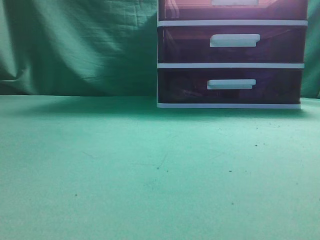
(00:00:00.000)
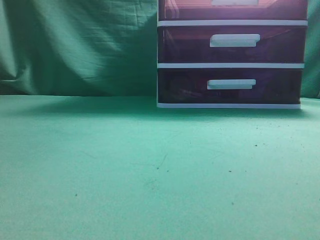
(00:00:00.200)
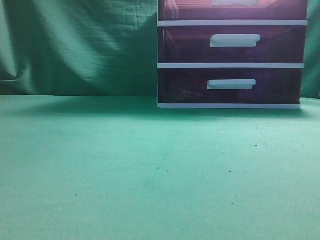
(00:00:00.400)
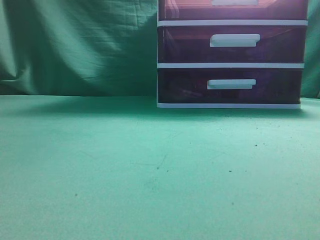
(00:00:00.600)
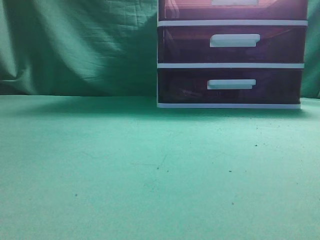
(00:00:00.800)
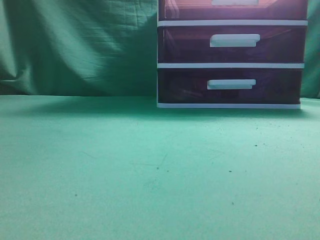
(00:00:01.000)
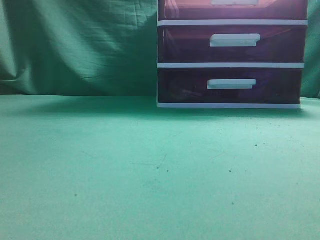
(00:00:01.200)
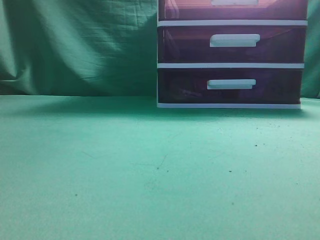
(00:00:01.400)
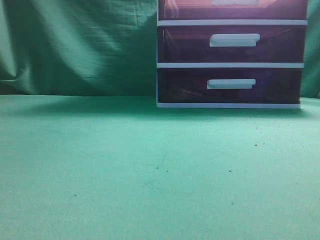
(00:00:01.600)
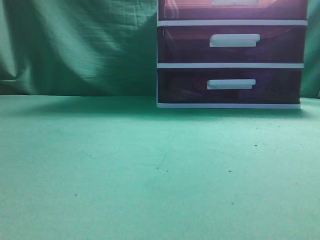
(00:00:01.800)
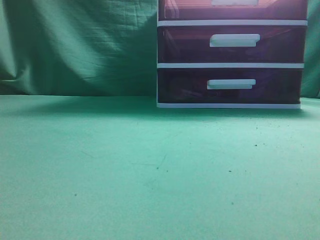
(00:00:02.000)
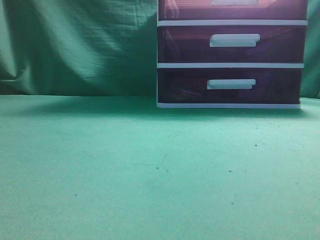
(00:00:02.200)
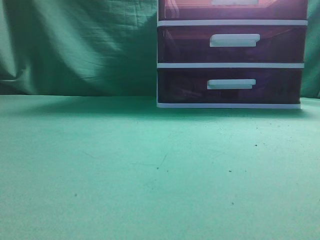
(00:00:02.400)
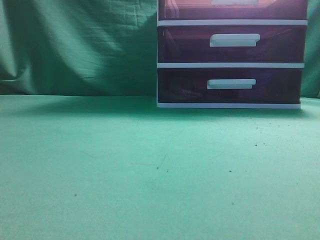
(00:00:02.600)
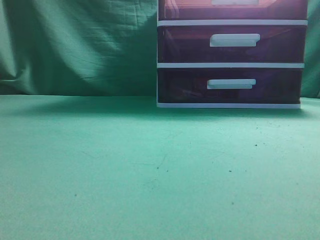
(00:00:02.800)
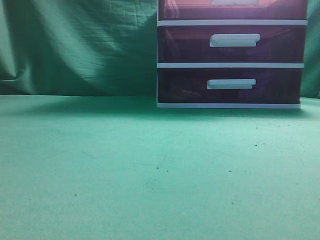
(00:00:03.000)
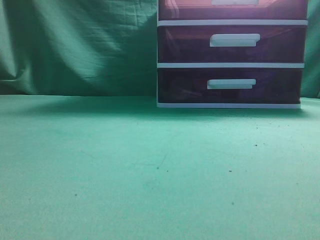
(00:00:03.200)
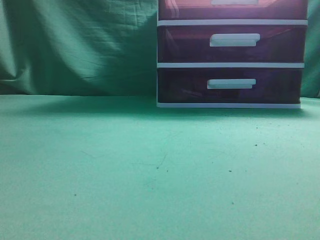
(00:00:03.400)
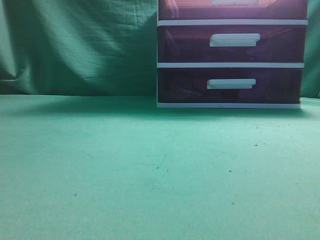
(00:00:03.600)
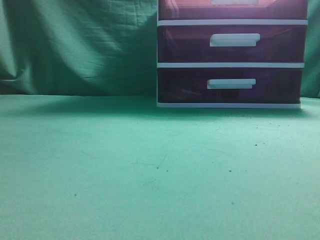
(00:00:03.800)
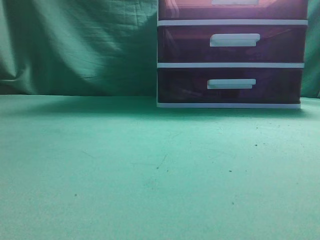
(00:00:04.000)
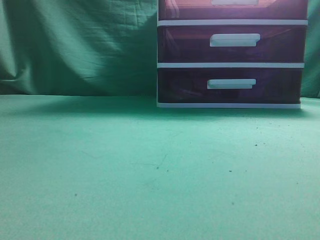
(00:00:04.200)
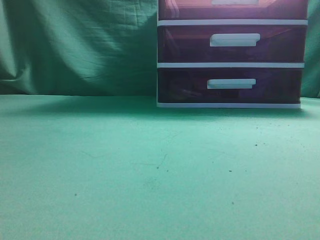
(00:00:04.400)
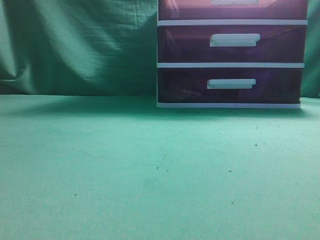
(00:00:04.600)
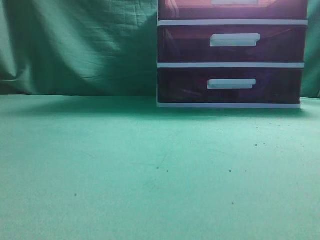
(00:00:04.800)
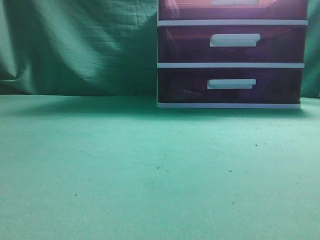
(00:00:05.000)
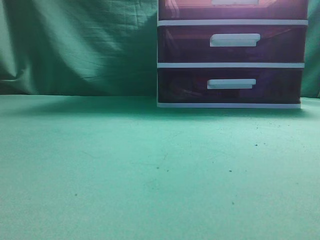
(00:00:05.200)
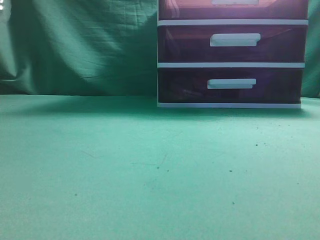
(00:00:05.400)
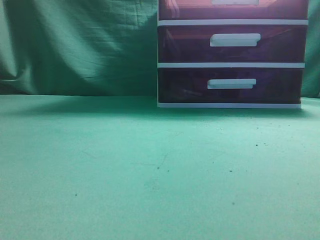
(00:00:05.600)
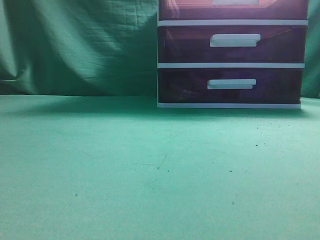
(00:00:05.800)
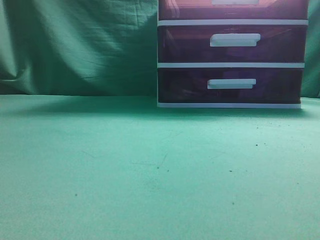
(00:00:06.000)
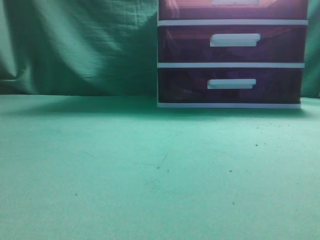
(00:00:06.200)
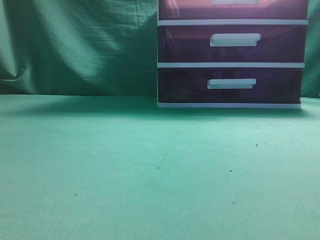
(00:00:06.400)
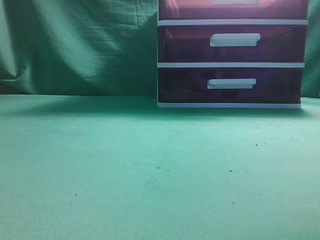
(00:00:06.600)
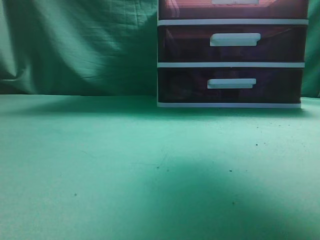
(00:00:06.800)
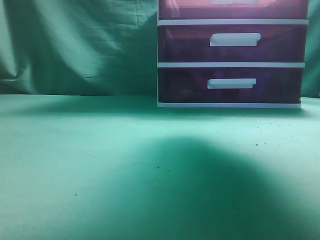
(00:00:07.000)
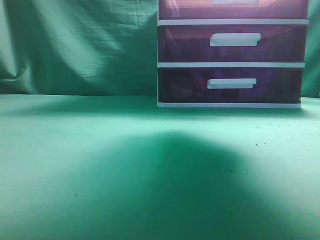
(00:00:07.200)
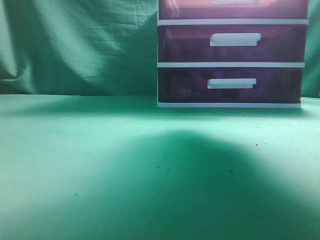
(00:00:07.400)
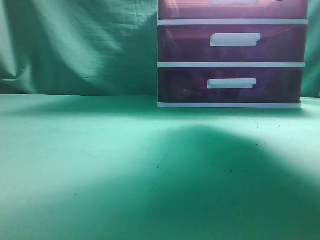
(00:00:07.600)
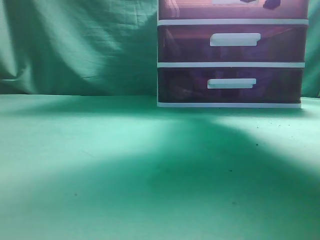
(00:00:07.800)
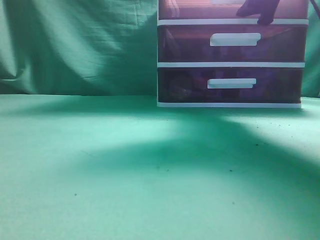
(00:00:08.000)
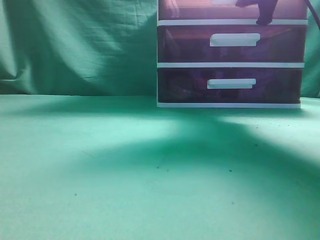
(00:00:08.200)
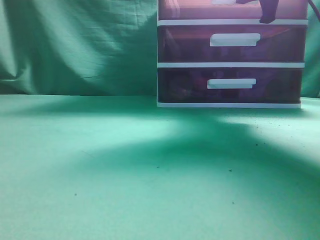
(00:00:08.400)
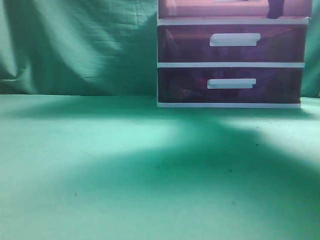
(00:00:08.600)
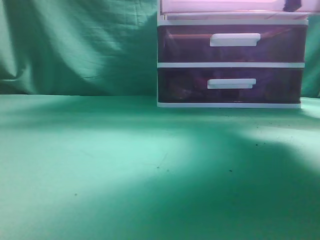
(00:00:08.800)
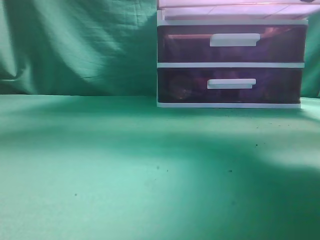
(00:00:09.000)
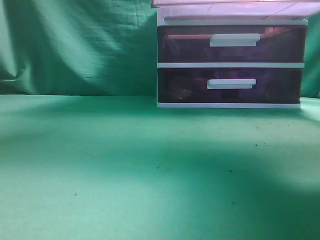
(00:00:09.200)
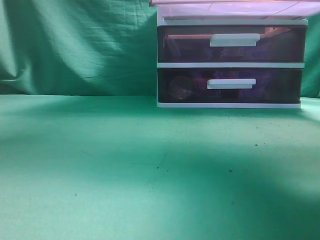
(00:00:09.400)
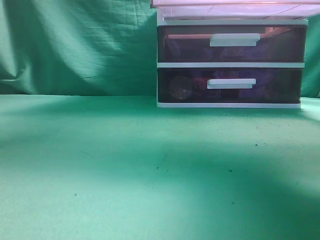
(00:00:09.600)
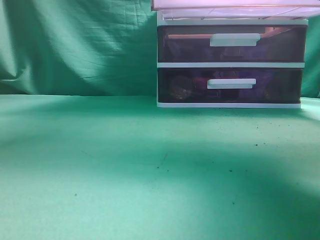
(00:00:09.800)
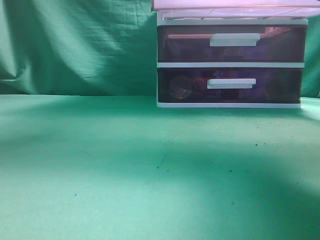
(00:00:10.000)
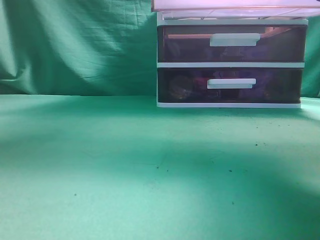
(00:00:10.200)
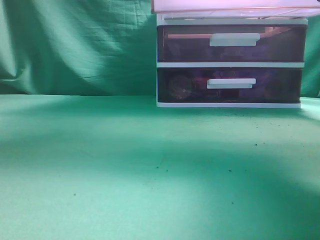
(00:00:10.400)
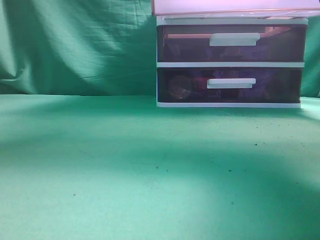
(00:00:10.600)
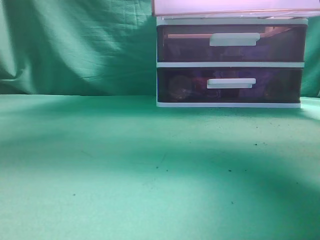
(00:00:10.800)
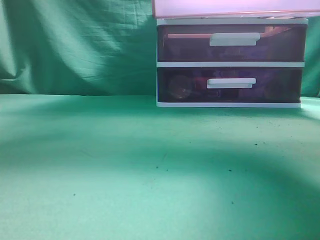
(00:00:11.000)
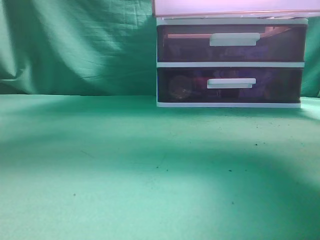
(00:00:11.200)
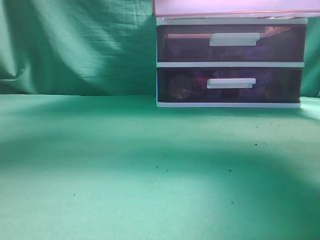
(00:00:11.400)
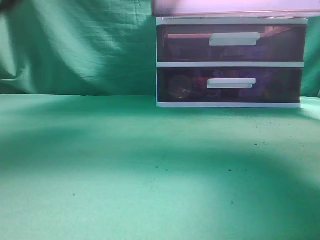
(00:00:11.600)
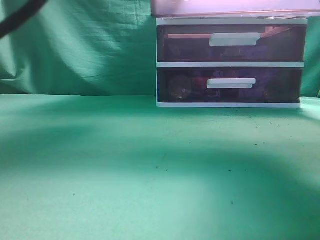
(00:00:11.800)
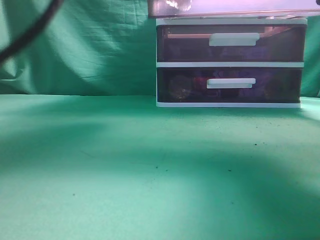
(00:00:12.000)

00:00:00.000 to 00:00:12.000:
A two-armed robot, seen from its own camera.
Task of the whole recording: place the water bottle into the drawer.
Step, 00:00:00.000 to 00:00:09.800: Open the drawer.
00:00:06.000 to 00:00:07.600: The right gripper heads forward, covering some 30 cm, and opens up.
00:00:07.600 to 00:00:09.000: The right gripper heads backward, covering about 5 cm, and closes.
00:00:09.000 to 00:00:10.400: The right gripper shifts some 5 cm backward; the left gripper shifts roughly 20 cm upward, to the right and forward.
00:00:10.400 to 00:00:12.000: The left gripper shifts some 20 cm to the right, downward and forward.

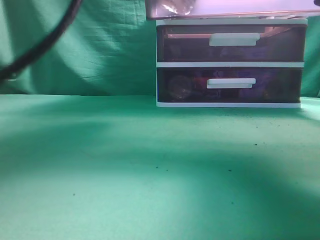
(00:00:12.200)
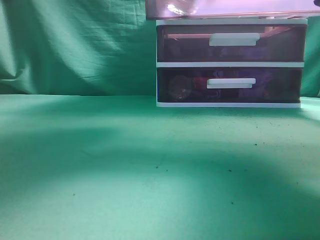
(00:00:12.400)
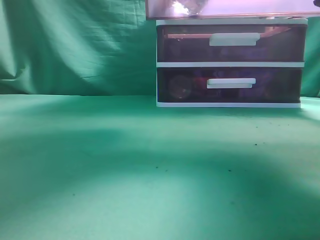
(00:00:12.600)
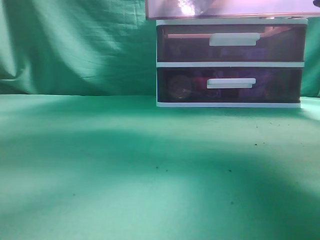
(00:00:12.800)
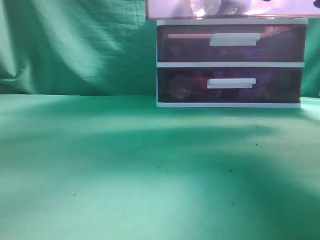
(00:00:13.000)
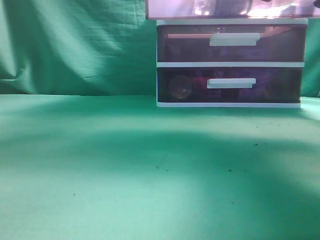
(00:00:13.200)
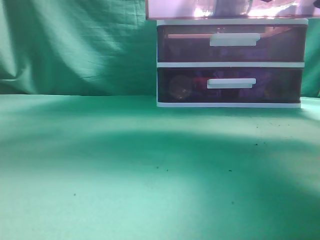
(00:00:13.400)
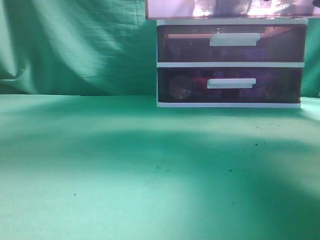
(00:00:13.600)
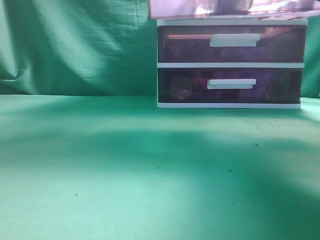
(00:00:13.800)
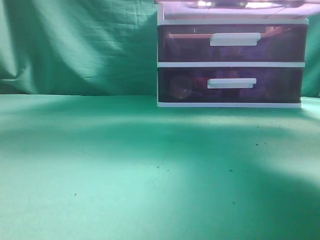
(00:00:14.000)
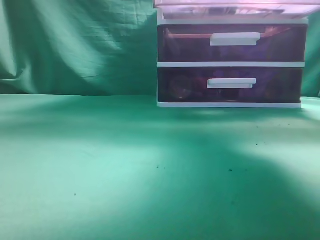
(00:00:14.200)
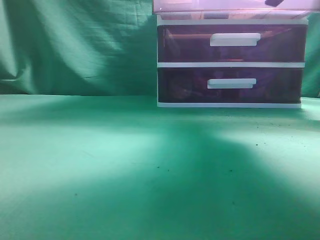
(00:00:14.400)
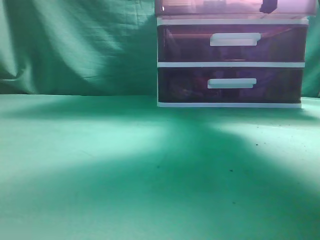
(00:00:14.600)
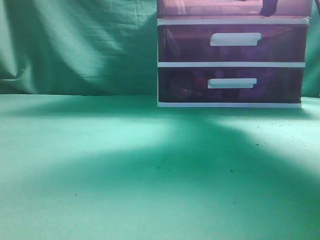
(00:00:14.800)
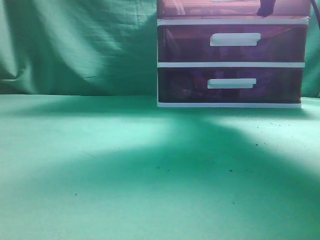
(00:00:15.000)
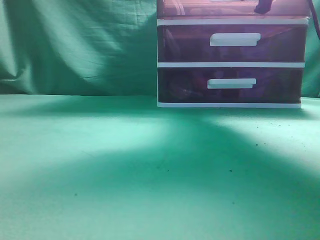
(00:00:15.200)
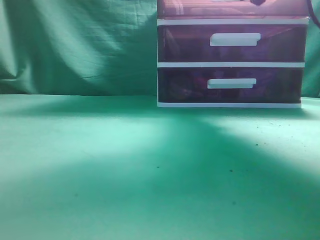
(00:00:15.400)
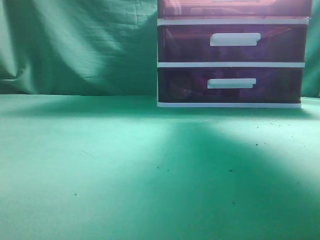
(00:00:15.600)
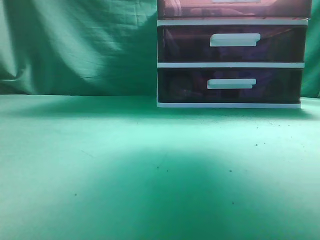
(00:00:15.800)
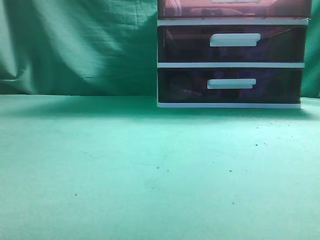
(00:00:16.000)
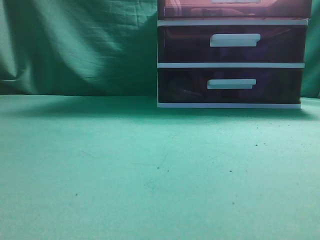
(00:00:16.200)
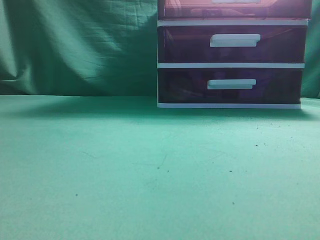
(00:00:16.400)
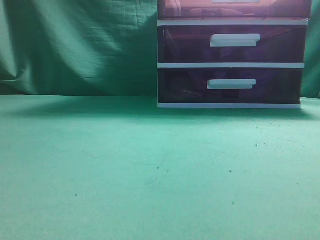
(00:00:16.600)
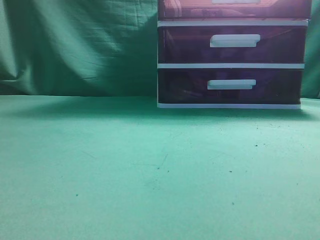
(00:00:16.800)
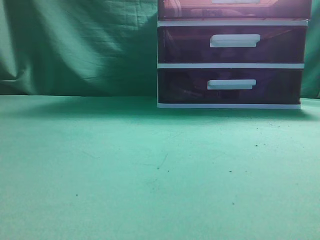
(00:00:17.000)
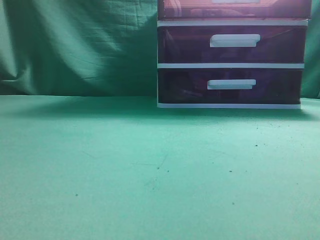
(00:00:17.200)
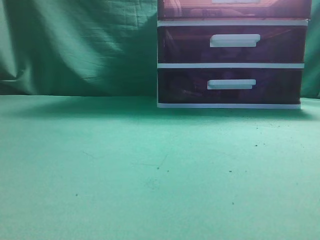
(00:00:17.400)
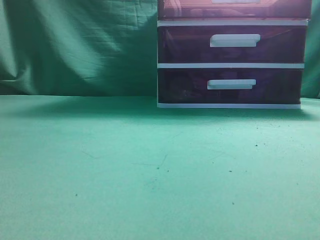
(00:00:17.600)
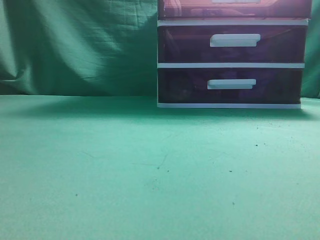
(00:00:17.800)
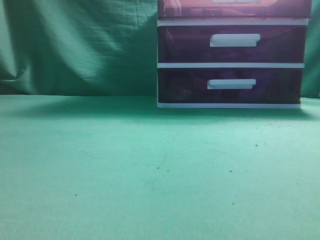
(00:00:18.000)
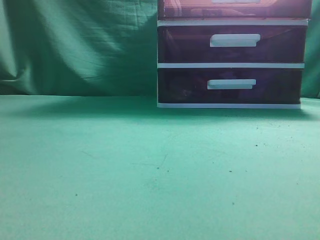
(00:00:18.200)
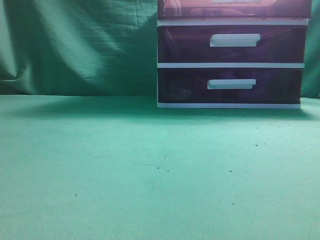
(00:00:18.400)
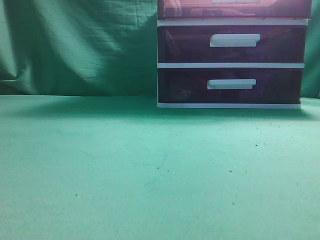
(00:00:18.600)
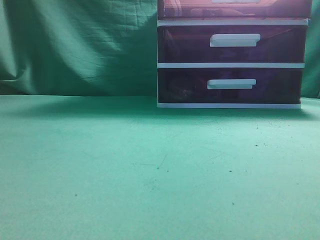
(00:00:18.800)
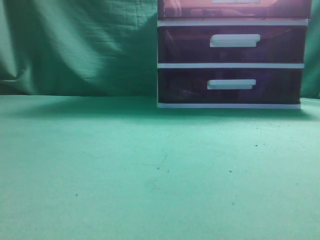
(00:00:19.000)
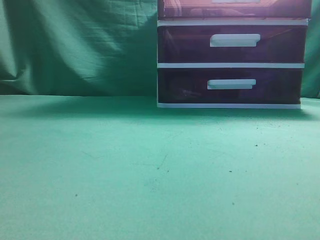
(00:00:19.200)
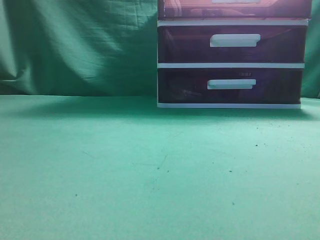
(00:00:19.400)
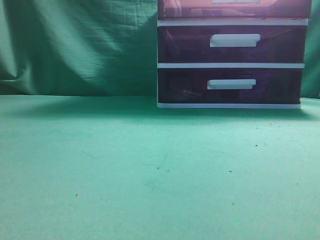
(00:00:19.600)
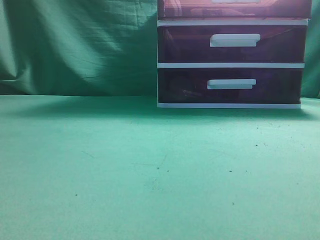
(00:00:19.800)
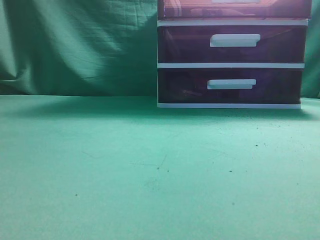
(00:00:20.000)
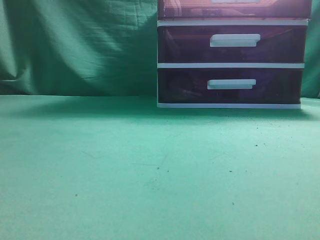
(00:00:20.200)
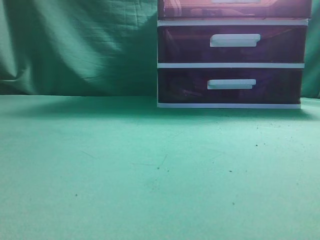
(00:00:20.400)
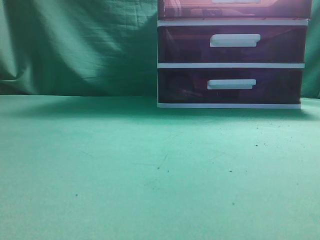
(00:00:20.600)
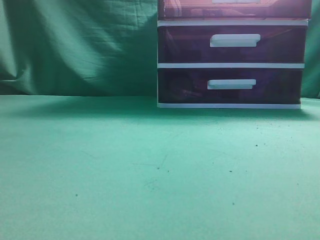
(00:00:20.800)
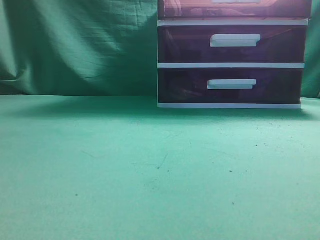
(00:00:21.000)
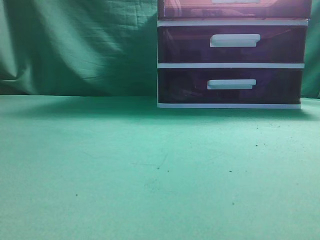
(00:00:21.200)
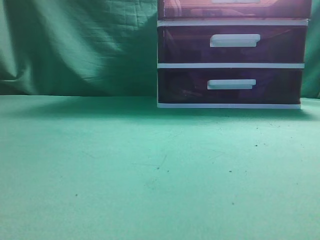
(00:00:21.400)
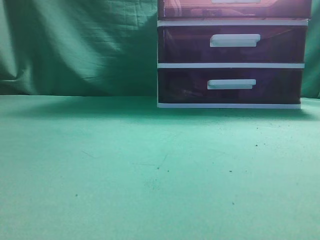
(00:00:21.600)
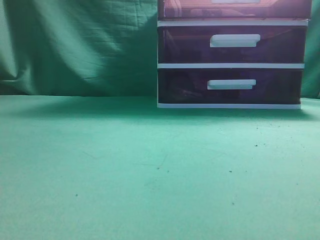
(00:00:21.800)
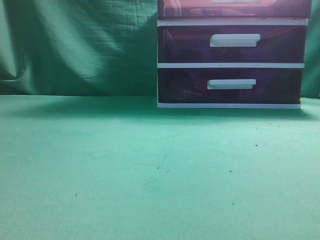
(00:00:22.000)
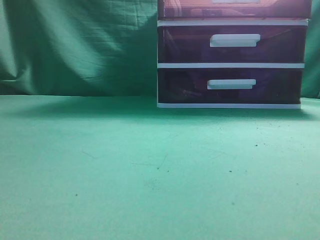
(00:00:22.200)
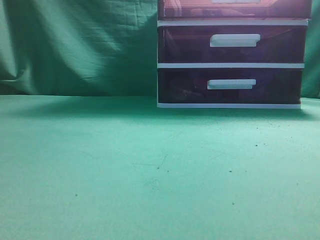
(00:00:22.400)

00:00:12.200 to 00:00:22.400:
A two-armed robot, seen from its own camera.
Task of the whole recording: place the water bottle into the drawer.
Step, 00:00:13.200 to 00:00:15.600: Close the drawer.
00:00:12.200 to 00:00:13.600: The left gripper travels upward, to the left and backward by about 15 cm, and closes its fingers.
00:00:13.600 to 00:00:15.200: The right gripper is displaced forward by about 15 cm; the left gripper shifts roughly 25 cm backward and to the left.
00:00:15.200 to 00:00:16.600: The right gripper heads backward and upward, covering approximately 30 cm, and closes up. The left gripper is displaced backward and to the left by approximately 10 cm.
